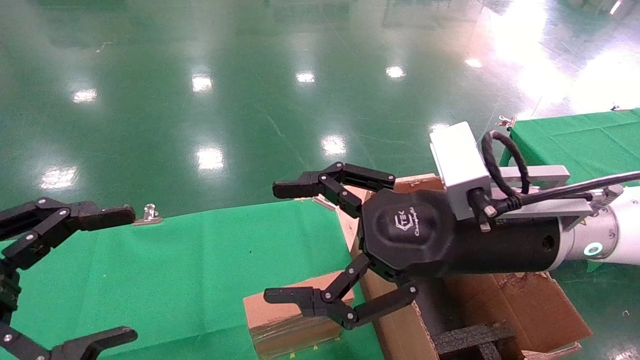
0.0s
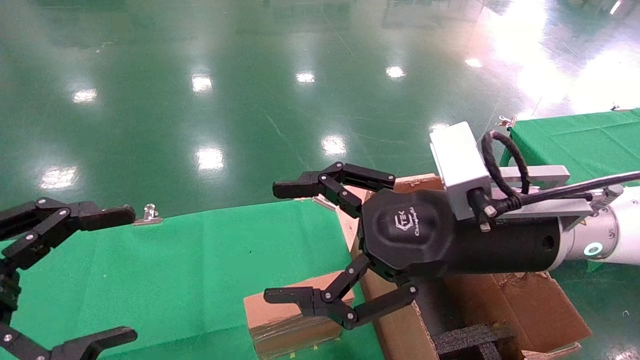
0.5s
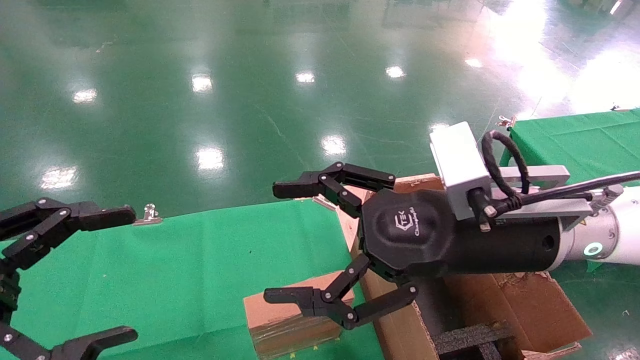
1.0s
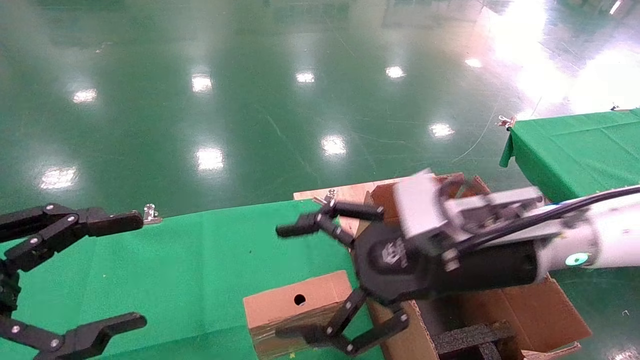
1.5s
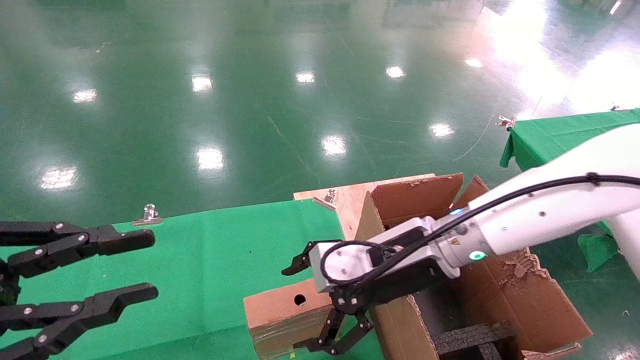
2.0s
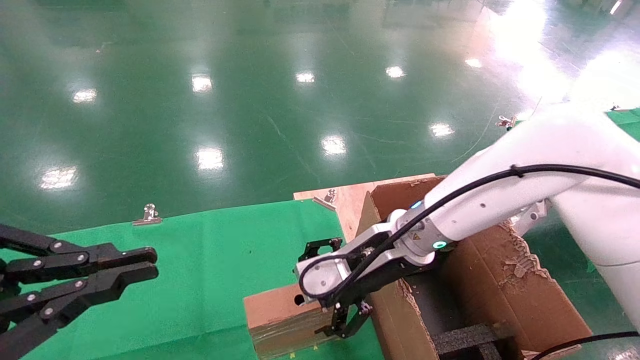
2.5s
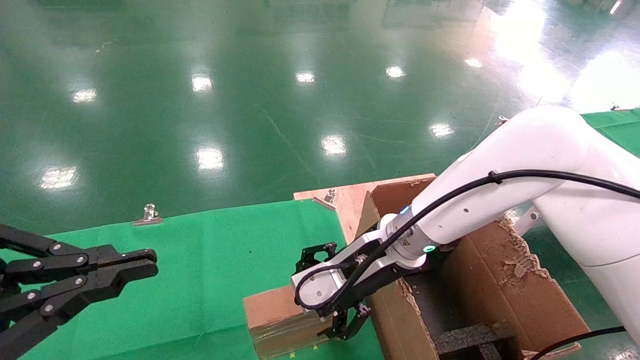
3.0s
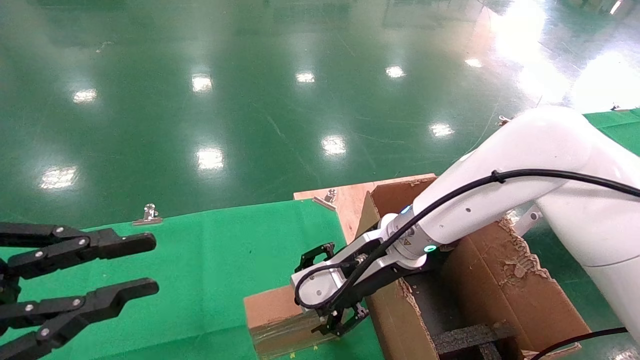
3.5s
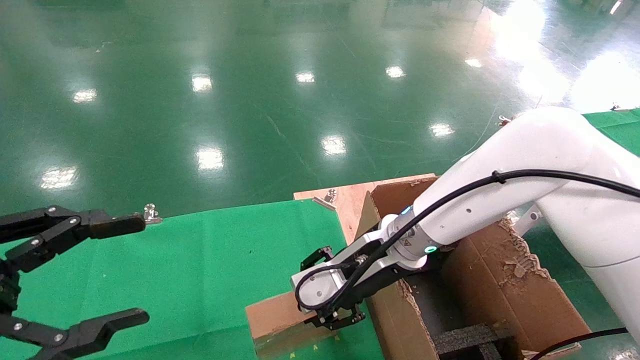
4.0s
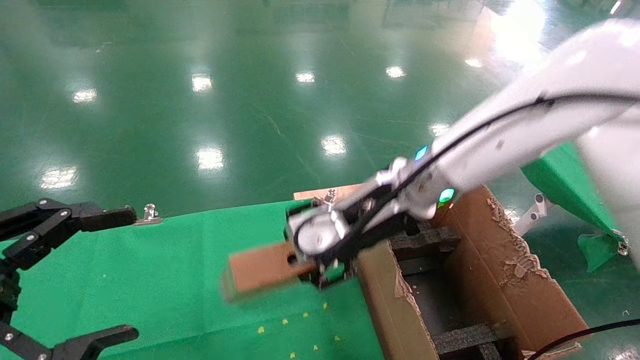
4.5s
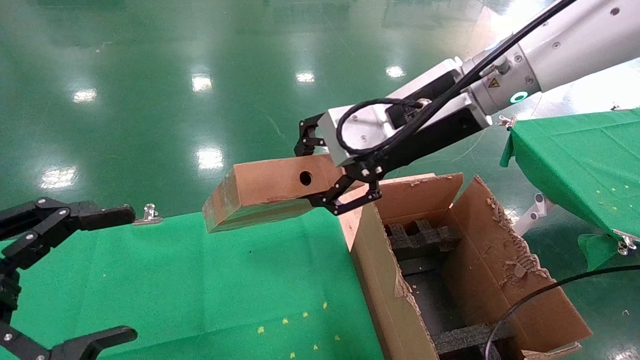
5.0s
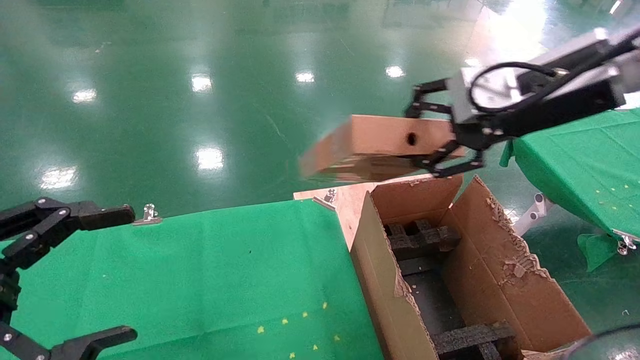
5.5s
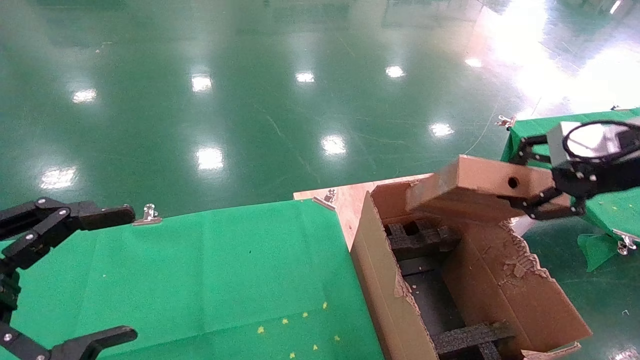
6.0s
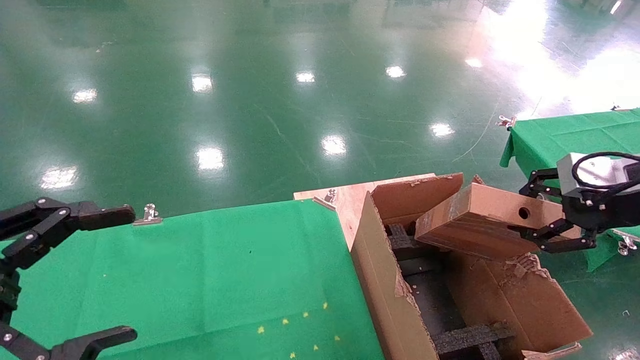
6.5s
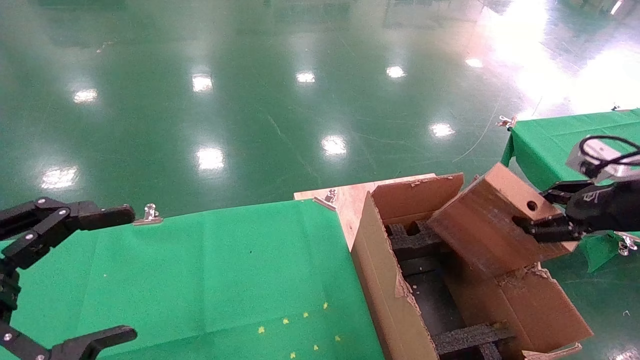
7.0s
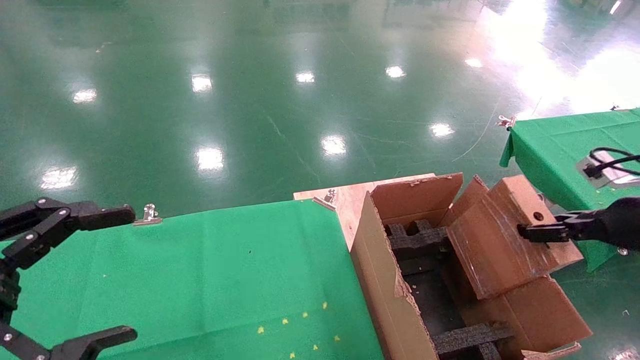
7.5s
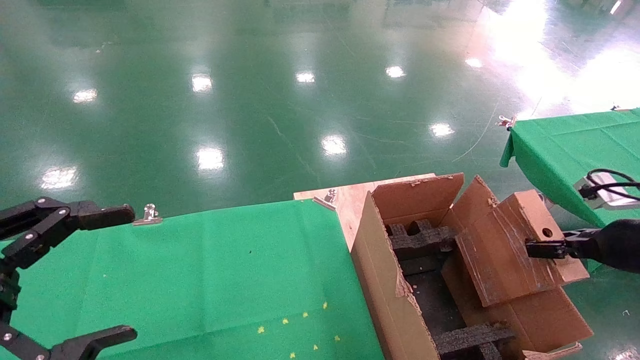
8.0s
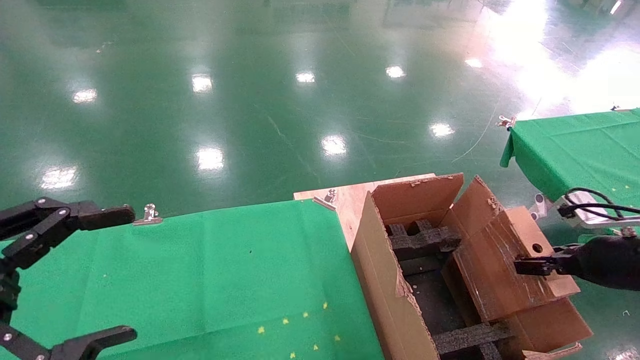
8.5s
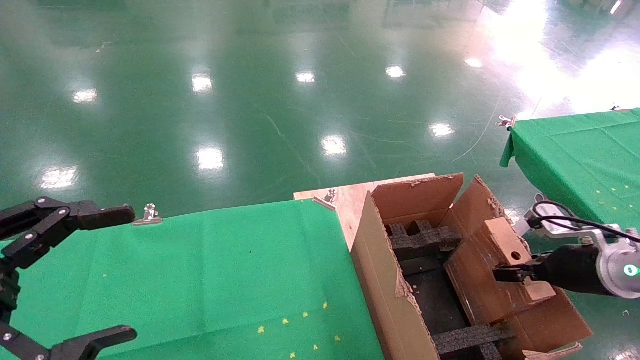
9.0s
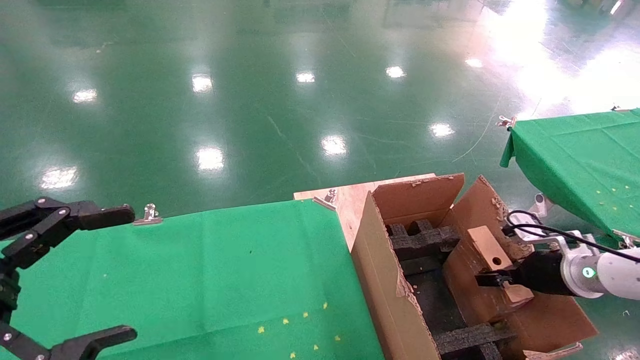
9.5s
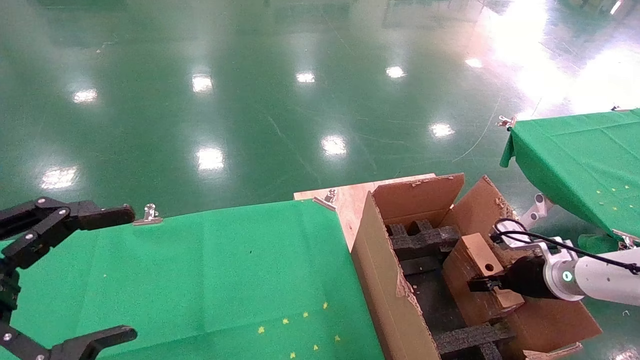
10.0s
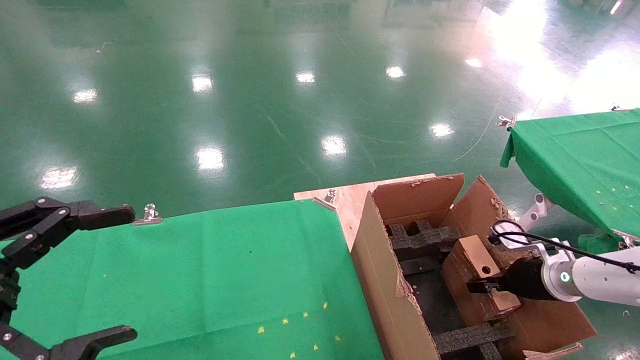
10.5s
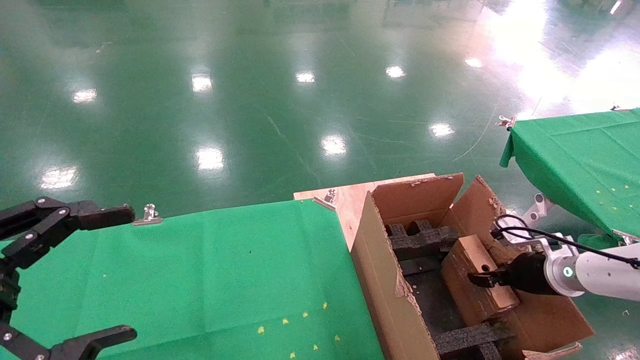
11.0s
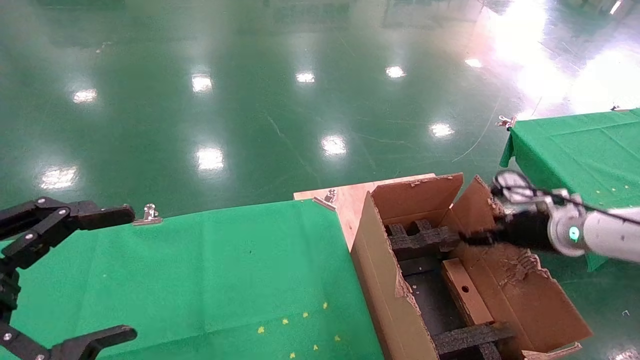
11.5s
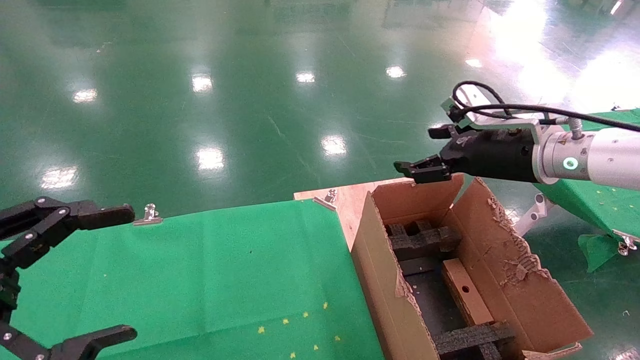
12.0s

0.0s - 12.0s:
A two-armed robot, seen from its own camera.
Task of the whole recording: using a robotic arm to pick up a cardboard box and palace it the carton.
Step, 1.5s - 4.0s: Pick up the mouse and the power cord paper box.
Step, 4.5s - 11.0s: Place the mouse and the power cord paper box into the container.
0.0s - 2.0s: The left gripper closes up; the right gripper heads forward and downward, covering some 10 cm.
2.0s - 4.0s: The right gripper closes, while the left gripper closes, then opens again.
4.0s - 6.0s: The left gripper opens up. The right gripper moves to the right and upward, approximately 30 cm, and closes.
6.0s - 8.0s: The right gripper heads downward and to the right, covering about 15 cm.
8.0s - 10.0s: The right gripper moves downward and forward, some 15 cm.
10.0s - 12.0s: The right gripper heads upward and to the left, covering some 25 cm, and opens.

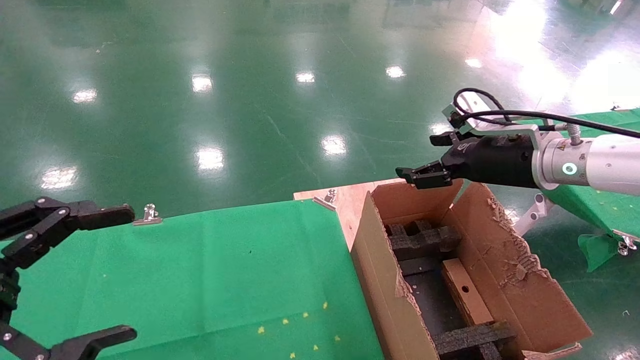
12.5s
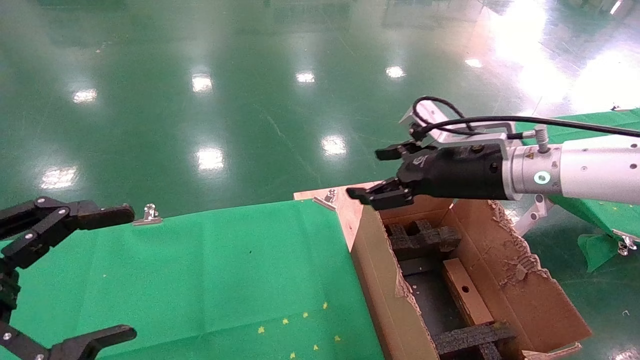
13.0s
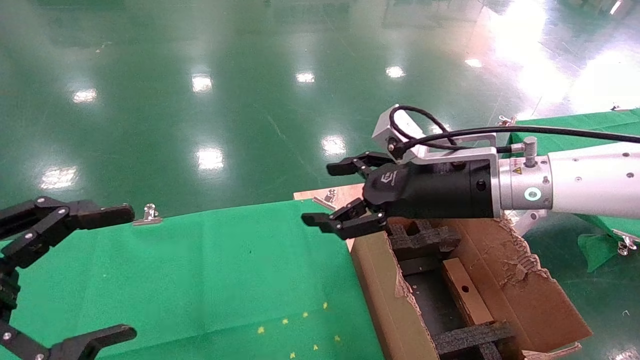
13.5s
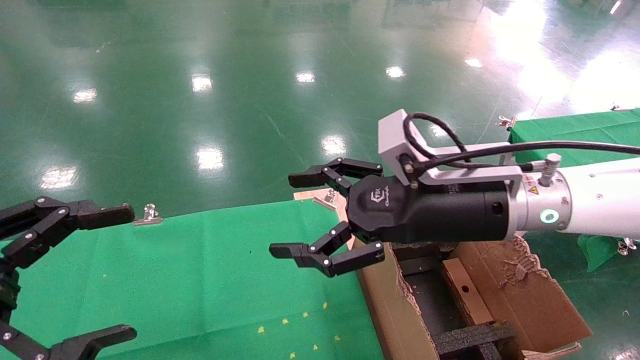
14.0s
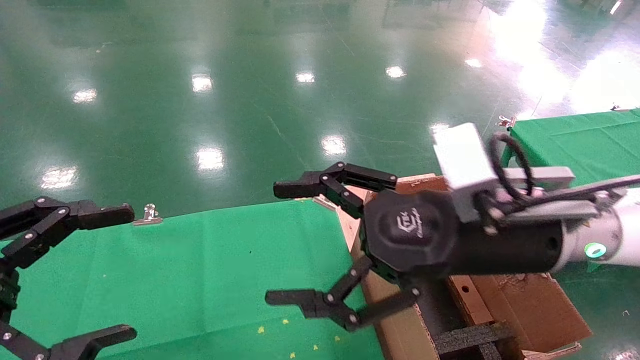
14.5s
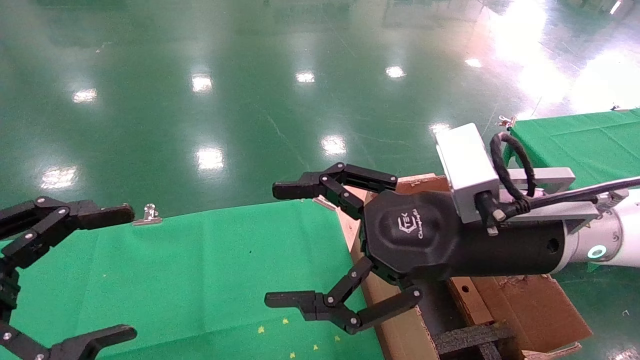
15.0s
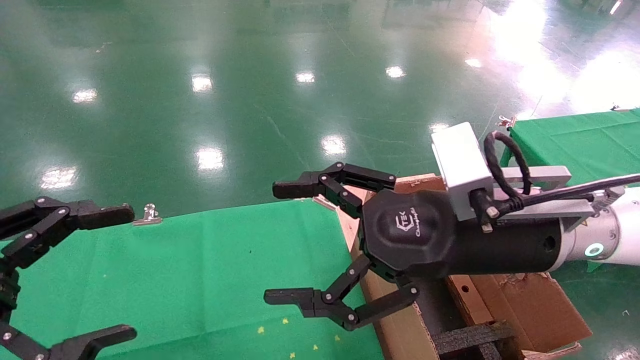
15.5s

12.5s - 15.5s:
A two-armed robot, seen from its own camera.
Task of the whole recording: using a robotic arm to pick up a cardboard box and palace it the carton.
12.5s - 14.0s: The right gripper heads to the left and backward, covering about 15 cm.
14.0s - 15.5s: The grippers move only a little.
